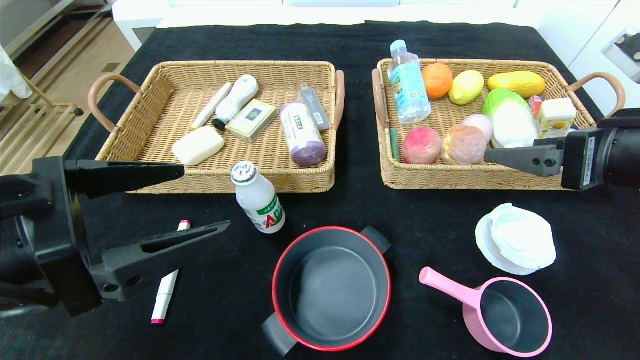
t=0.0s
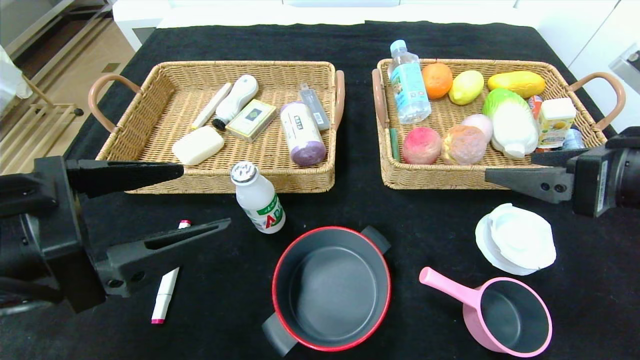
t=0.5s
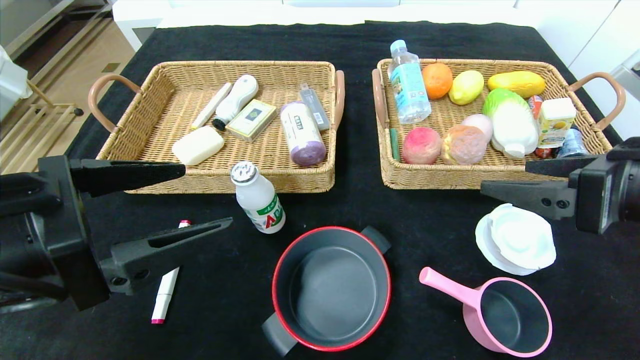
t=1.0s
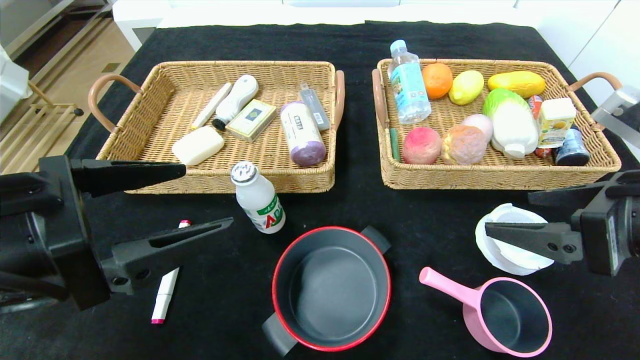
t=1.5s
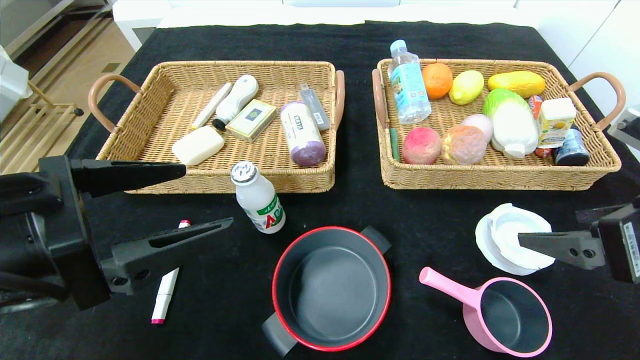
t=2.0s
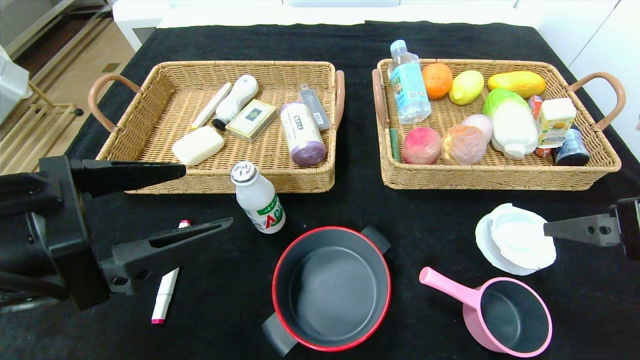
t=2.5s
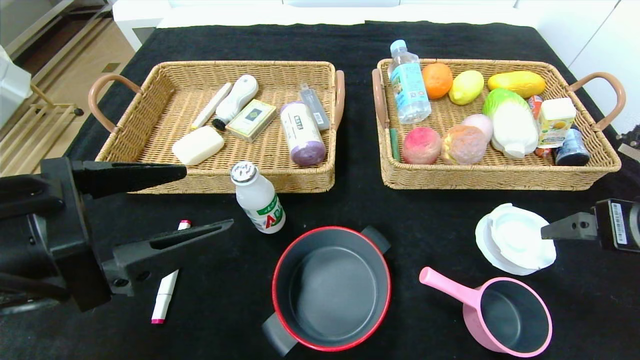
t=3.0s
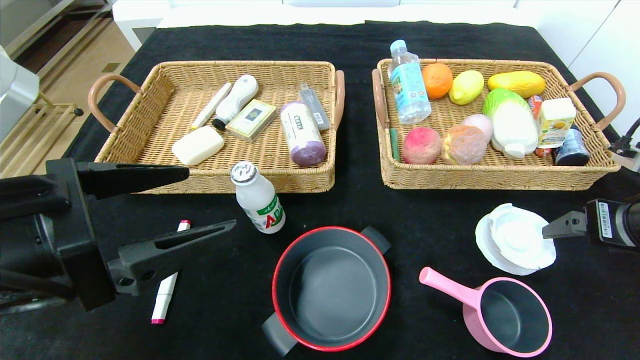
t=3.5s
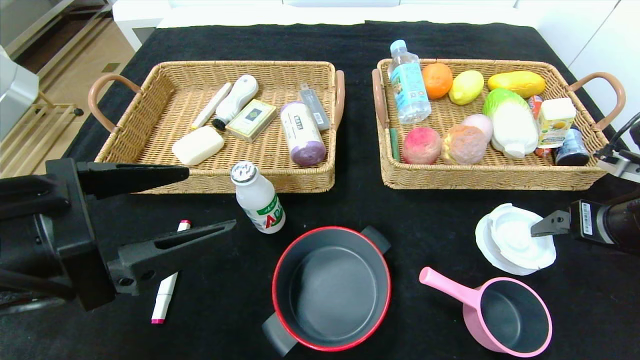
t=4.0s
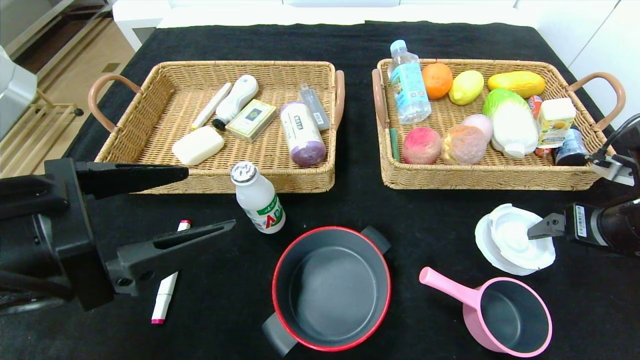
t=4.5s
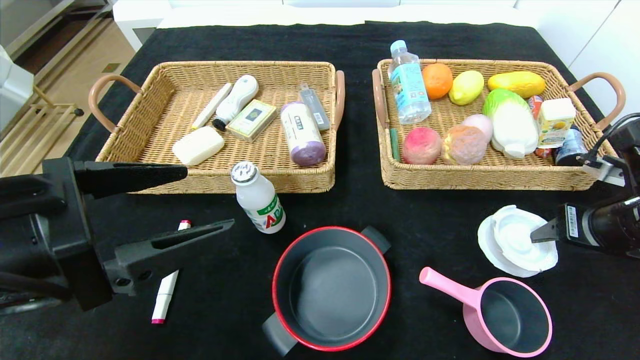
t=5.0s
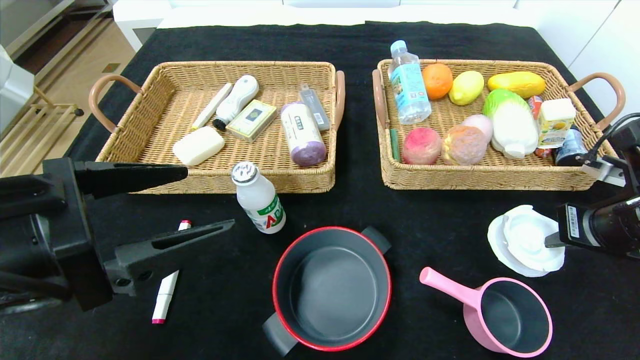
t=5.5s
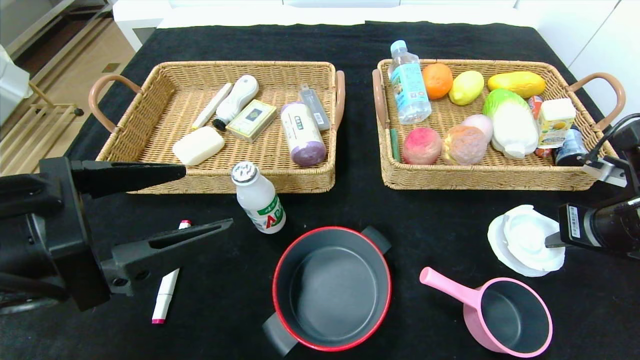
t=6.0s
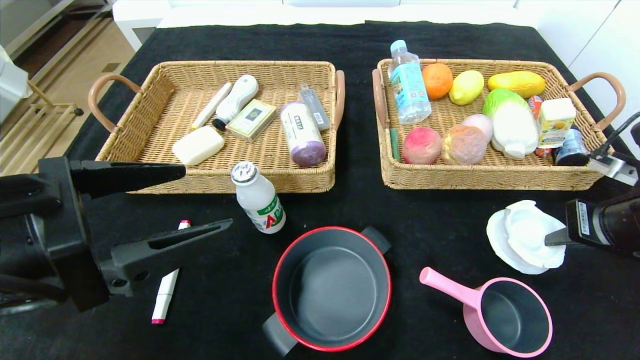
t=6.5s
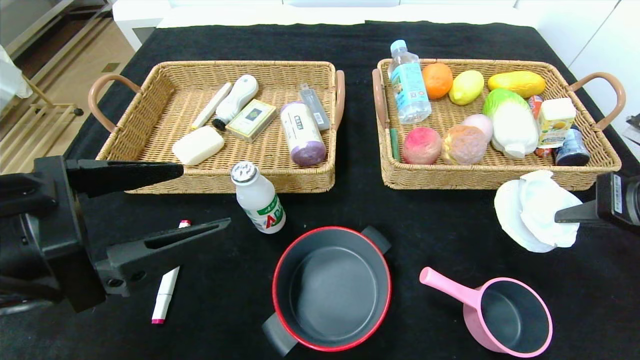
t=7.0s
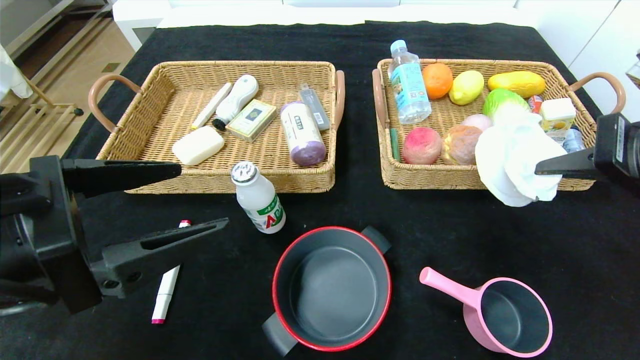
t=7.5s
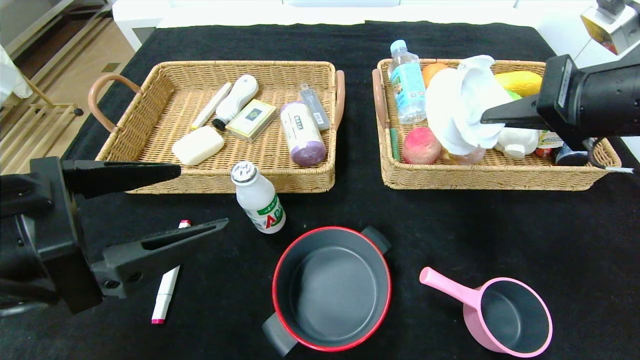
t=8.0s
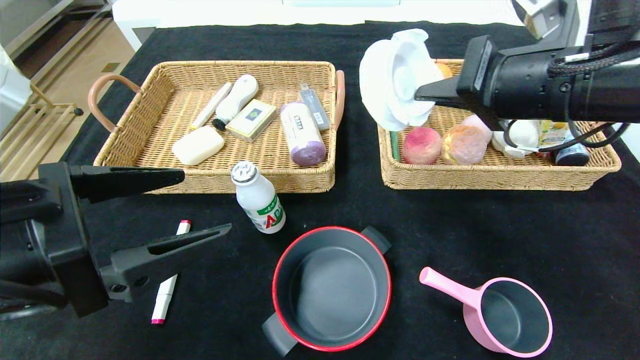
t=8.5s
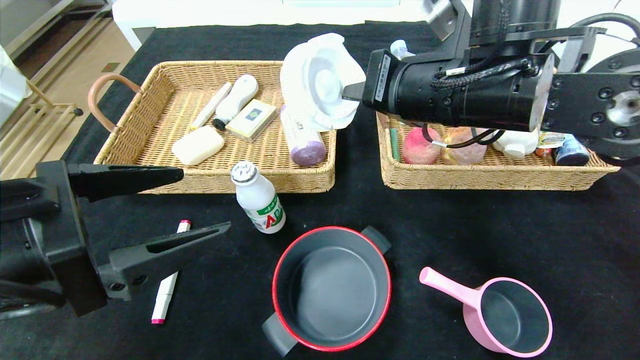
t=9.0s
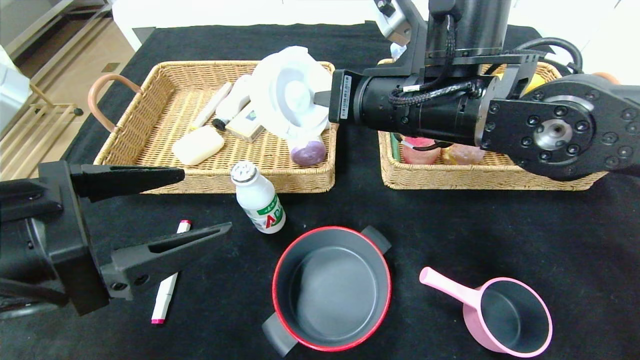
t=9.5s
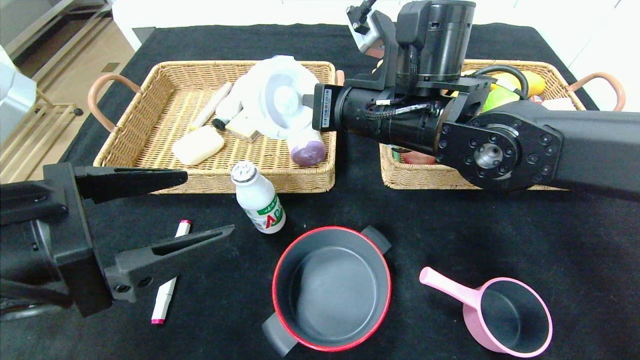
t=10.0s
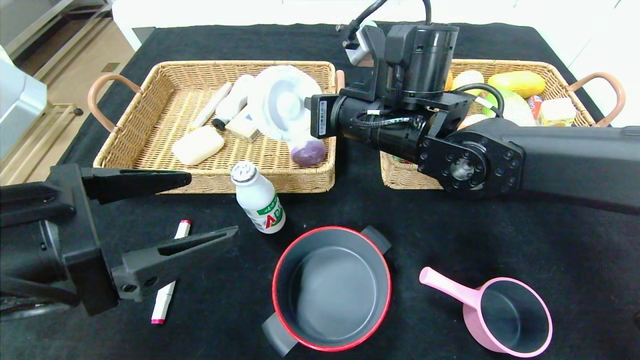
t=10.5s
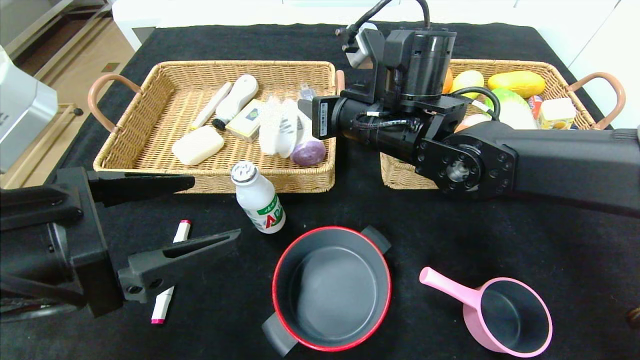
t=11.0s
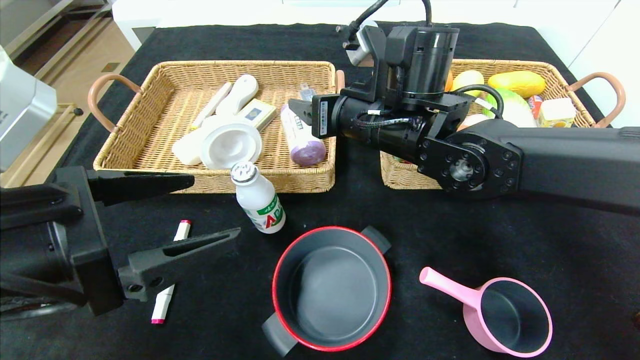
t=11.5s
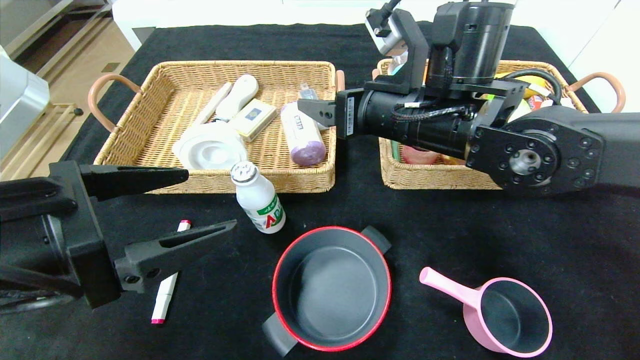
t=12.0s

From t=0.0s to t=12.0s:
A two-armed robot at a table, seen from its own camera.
From t=0.0s to t=2.0s: The right gripper is displaced backward by about 5 cm.
From t=2.0s to t=4.0s: The right gripper is displaced forward, to the right and downward by about 10 cm.
From t=4.0s to t=6.0s: The right gripper closes.
From t=6.0s to t=8.0s: The right gripper goes approximately 15 cm upward and to the left.
From t=8.0s to t=10.0s: The right gripper heads to the left and forward, covering some 20 cm.
From t=10.0s to t=12.0s: The right gripper opens.

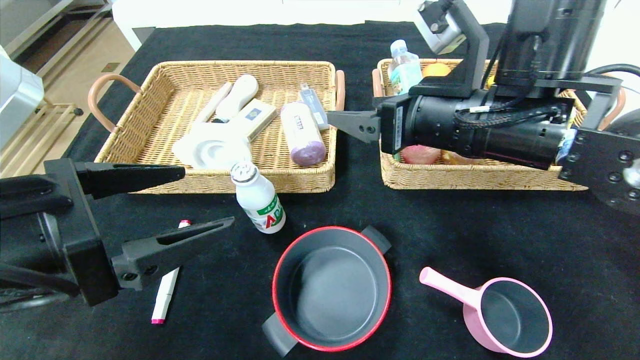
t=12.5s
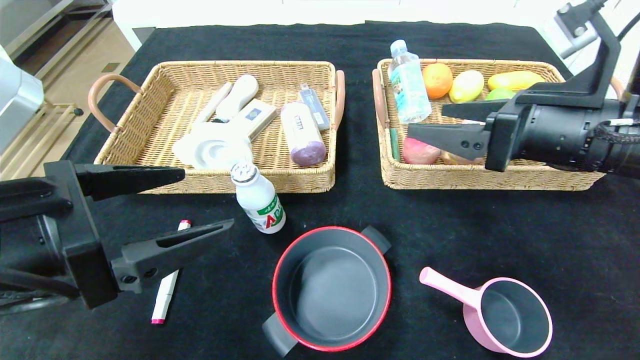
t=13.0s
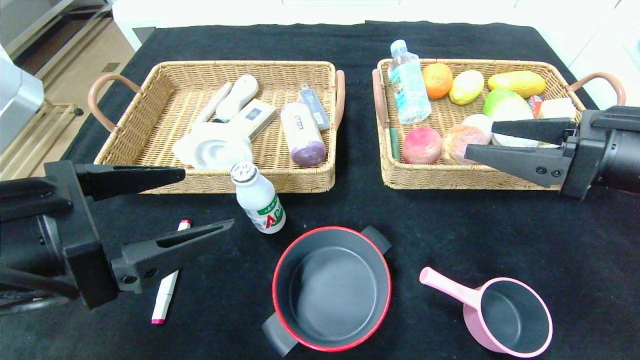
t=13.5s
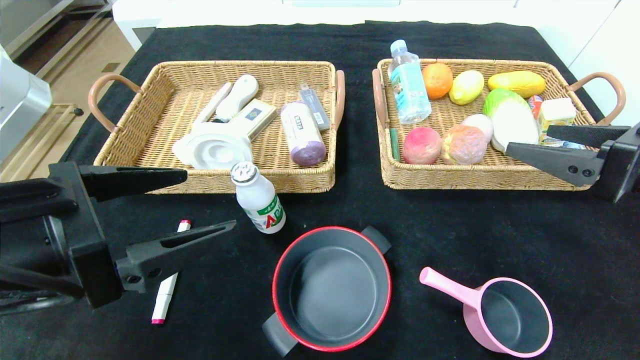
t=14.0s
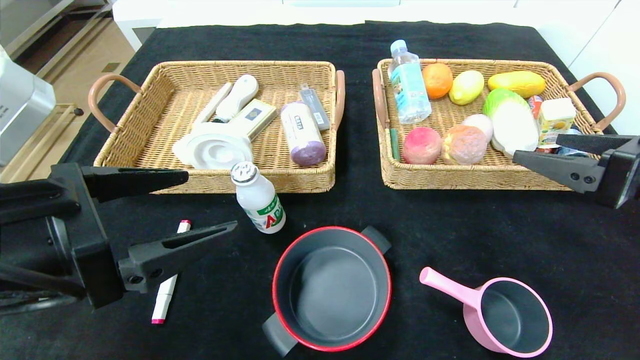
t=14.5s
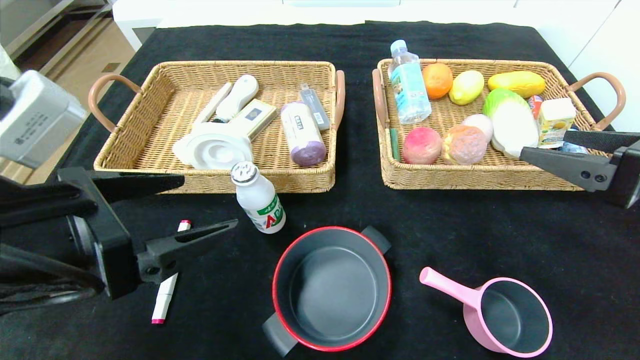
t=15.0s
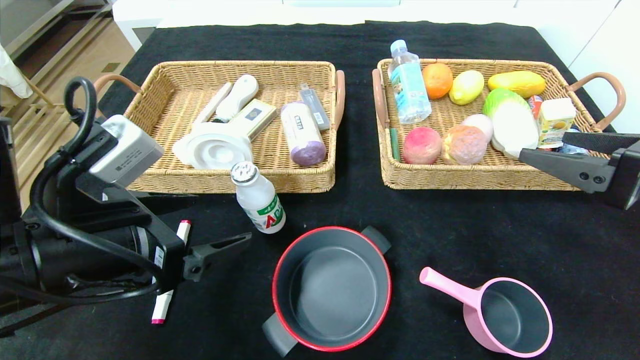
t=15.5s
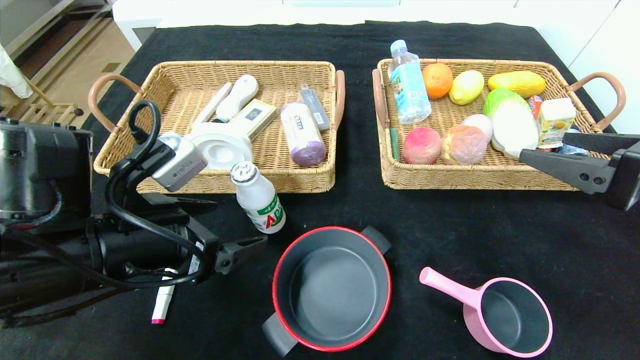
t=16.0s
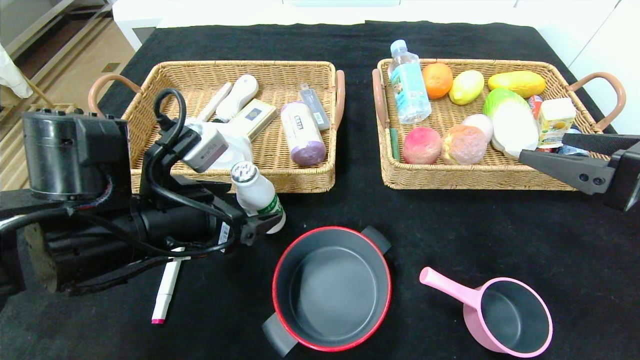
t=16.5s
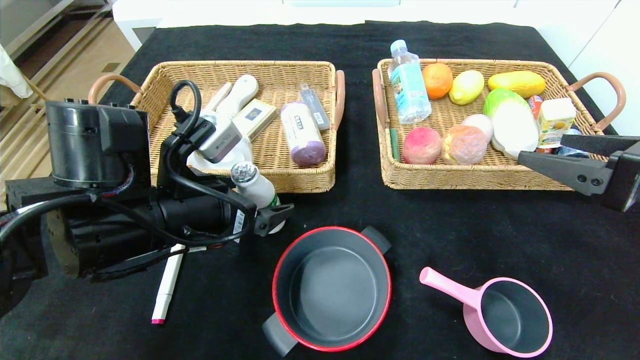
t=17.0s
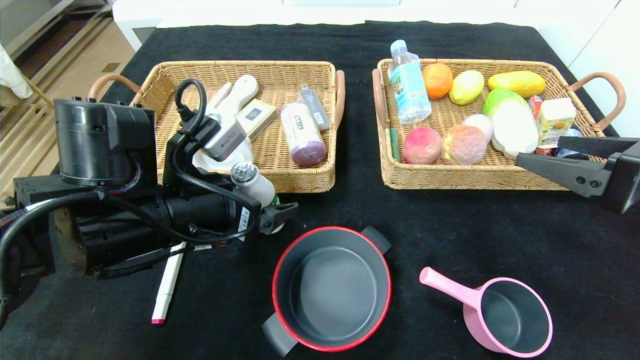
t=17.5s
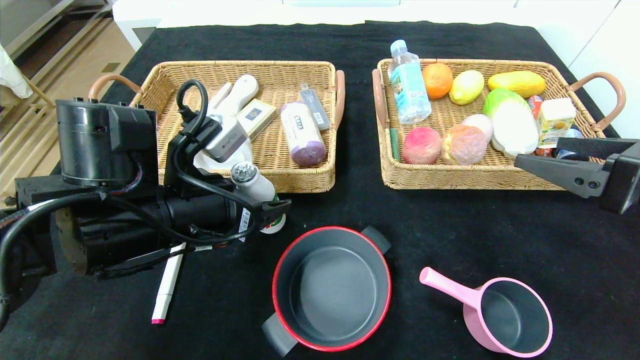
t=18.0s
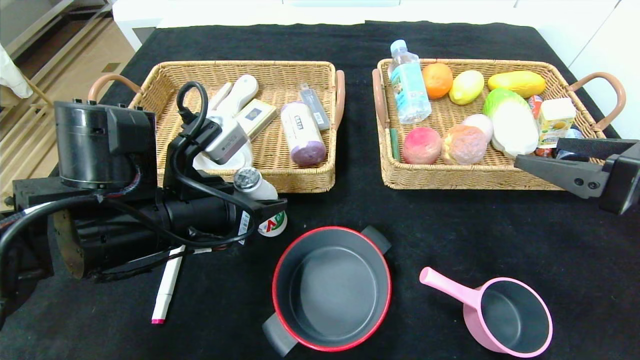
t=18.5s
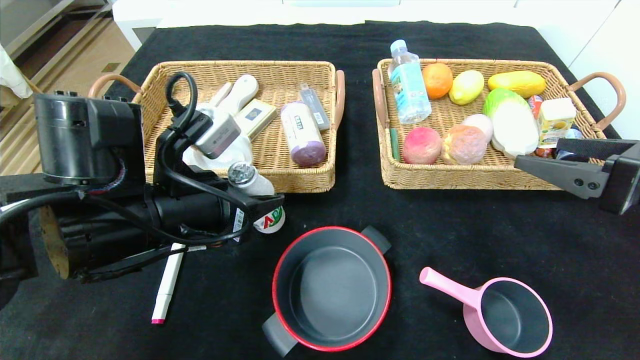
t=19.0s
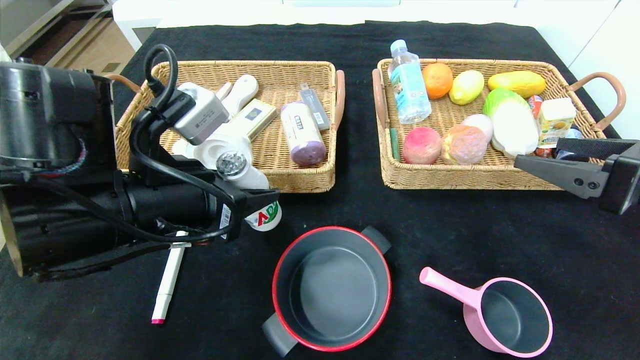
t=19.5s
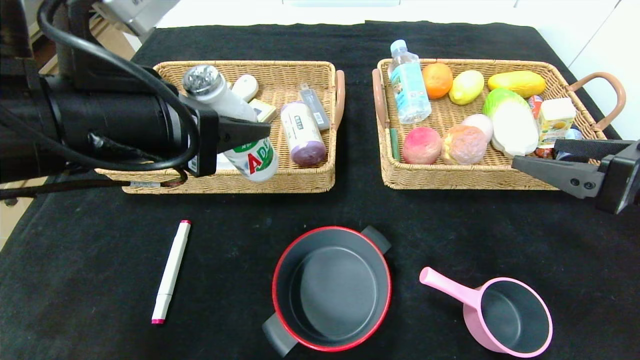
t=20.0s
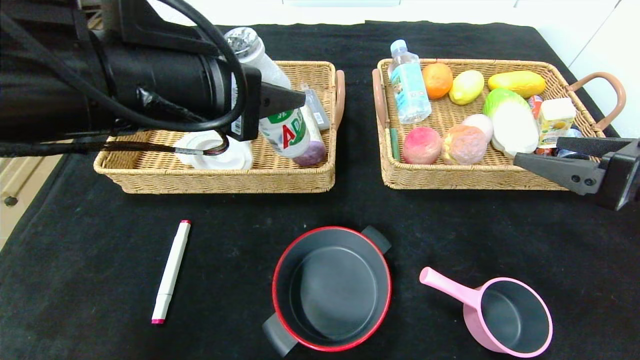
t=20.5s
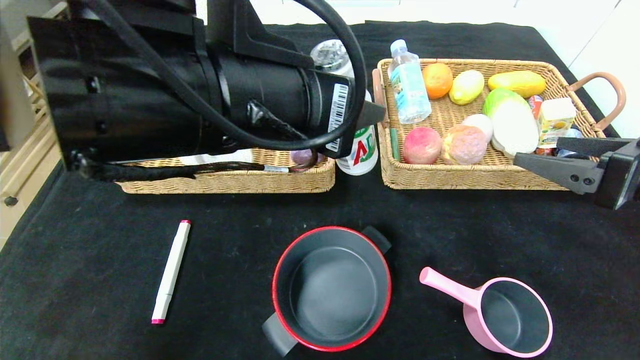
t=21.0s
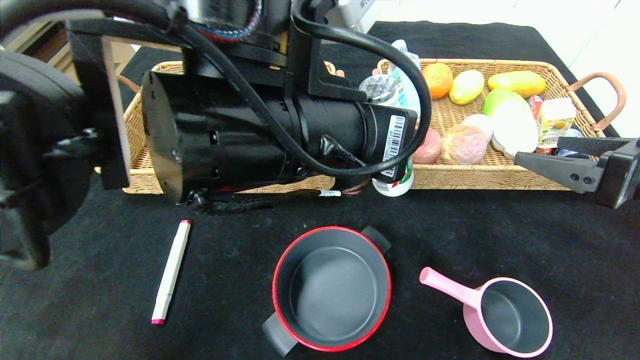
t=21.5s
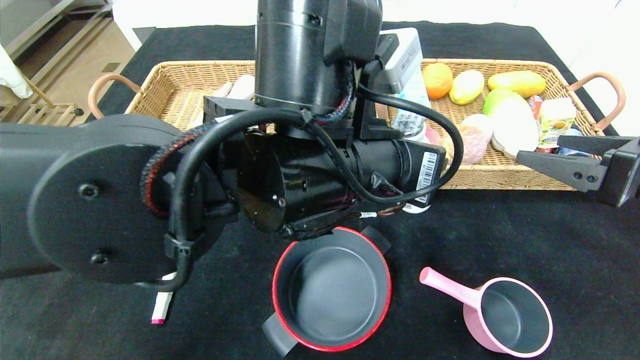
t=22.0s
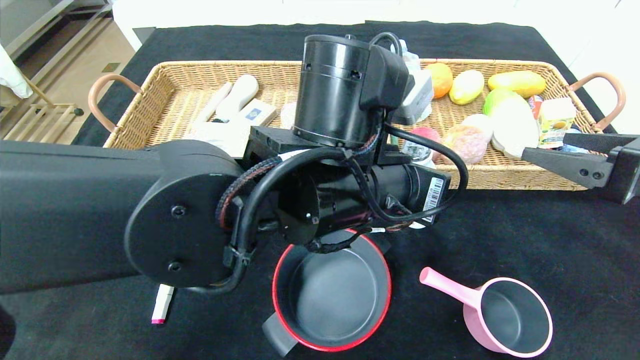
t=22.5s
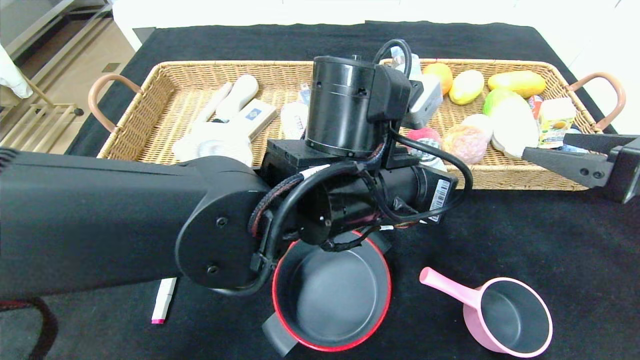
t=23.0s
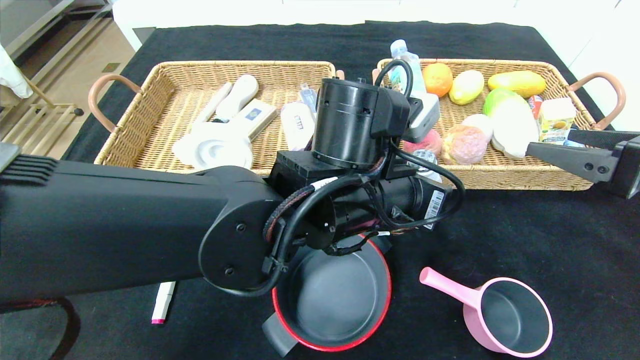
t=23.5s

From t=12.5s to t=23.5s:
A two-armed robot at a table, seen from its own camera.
From t=12.5s to t=14.5s: The right gripper travels to the right and backward by approximately 20 cm.
From t=14.5s to t=16.0s: The left gripper travels forward by some 5 cm.
From t=16.0s to t=18.0s: The left gripper closes up.
From t=18.0s to t=20.0s: The left gripper is displaced upward by roughly 10 cm.
From t=20.0s to t=21.5s: The left gripper goes roughly 15 cm to the right.
From t=21.5s to t=23.5s: The left gripper travels downward and to the right by approximately 10 cm.
